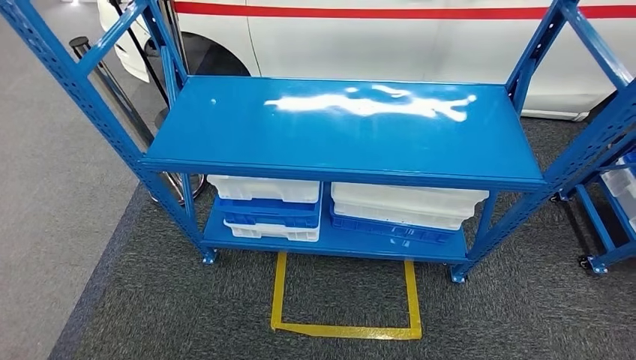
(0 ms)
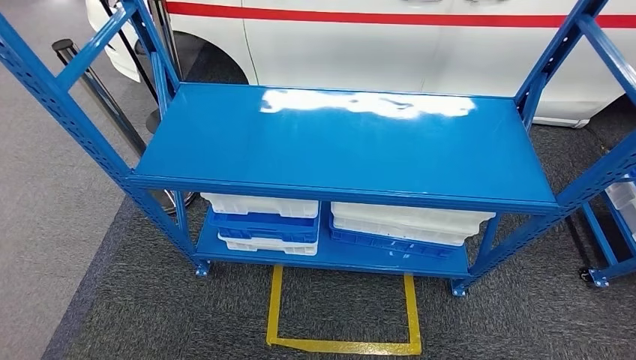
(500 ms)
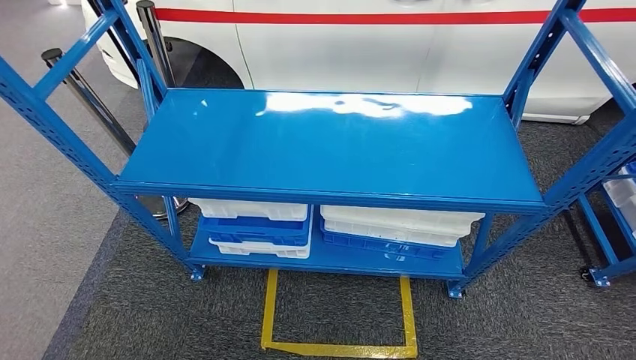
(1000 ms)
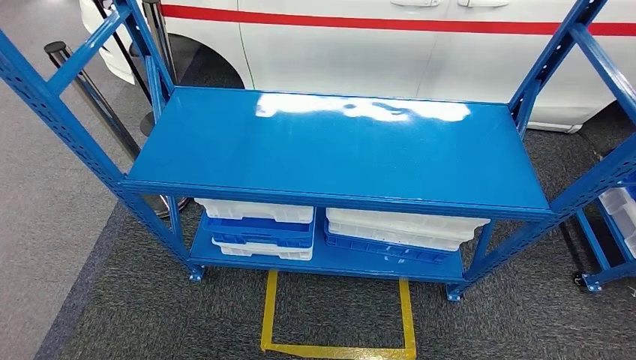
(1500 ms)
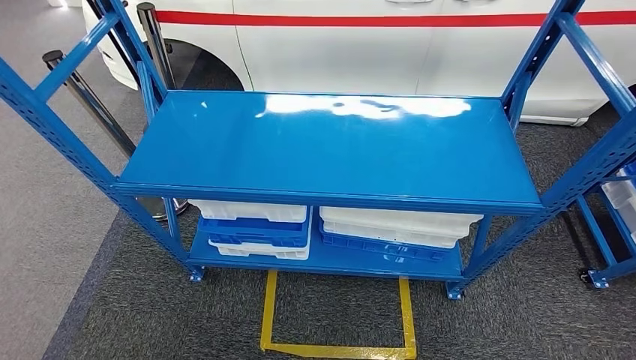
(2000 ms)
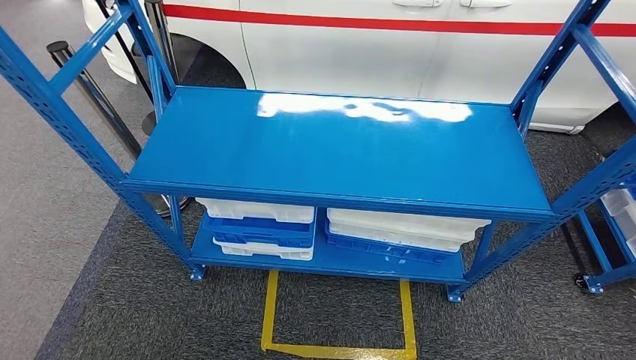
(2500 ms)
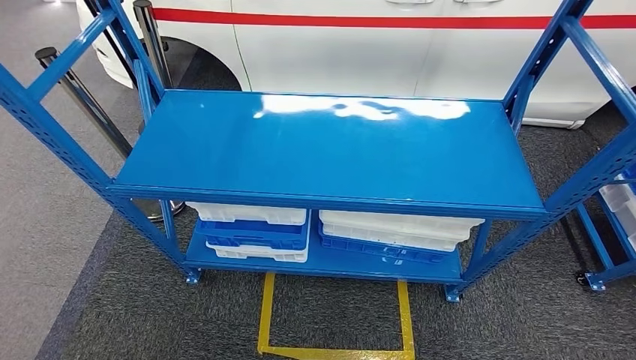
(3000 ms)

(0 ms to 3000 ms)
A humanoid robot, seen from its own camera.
Step, 0 ms - 3000 ms: Move to the initial position of the shelf.
1500 ms - 3000 ms: The right hand is displaced to the right by some 5 cm; the left hand heads to the left, covering about 5 cm.
